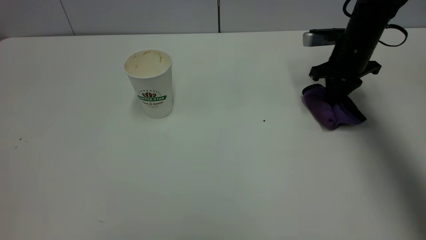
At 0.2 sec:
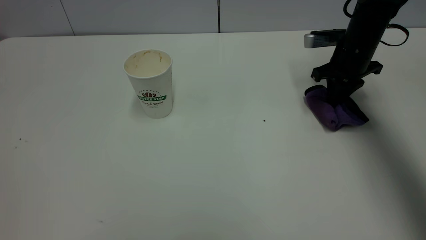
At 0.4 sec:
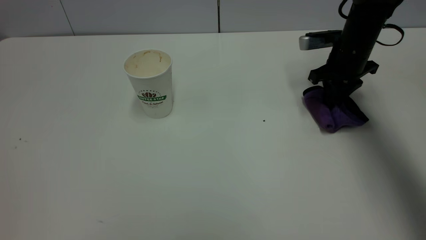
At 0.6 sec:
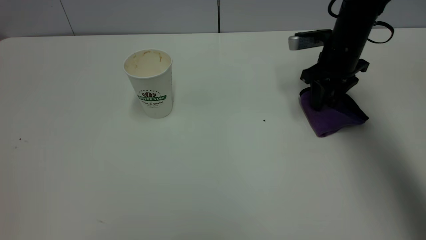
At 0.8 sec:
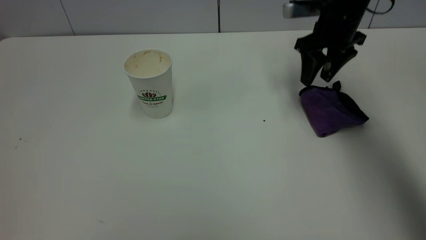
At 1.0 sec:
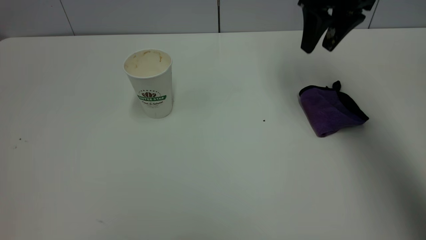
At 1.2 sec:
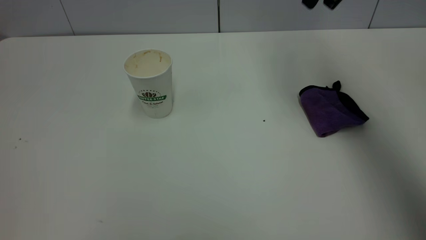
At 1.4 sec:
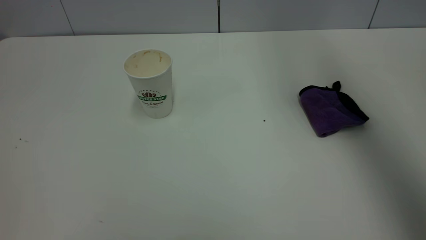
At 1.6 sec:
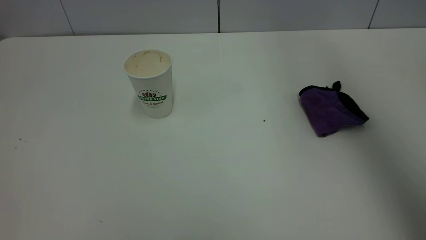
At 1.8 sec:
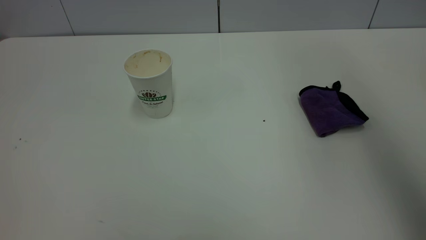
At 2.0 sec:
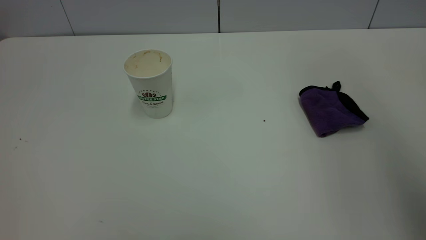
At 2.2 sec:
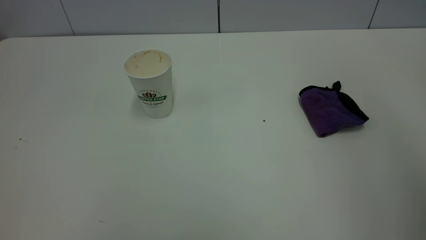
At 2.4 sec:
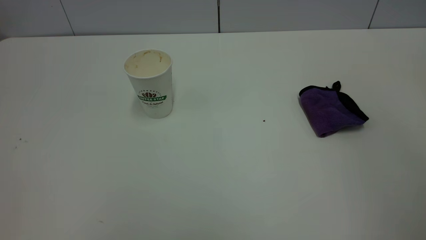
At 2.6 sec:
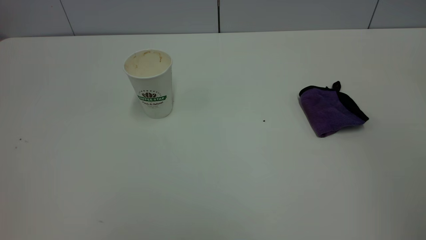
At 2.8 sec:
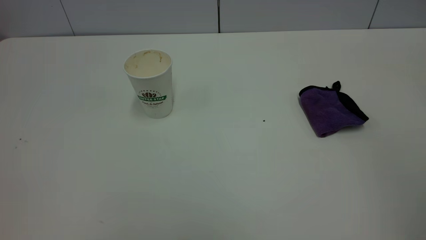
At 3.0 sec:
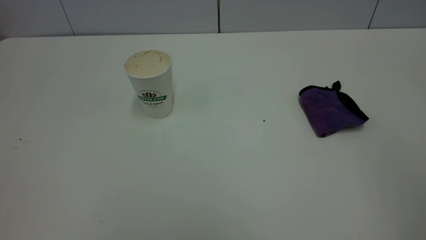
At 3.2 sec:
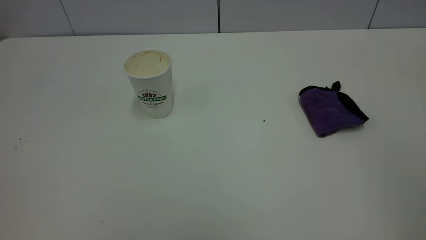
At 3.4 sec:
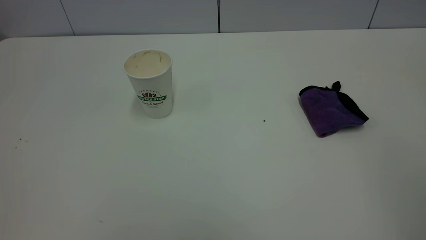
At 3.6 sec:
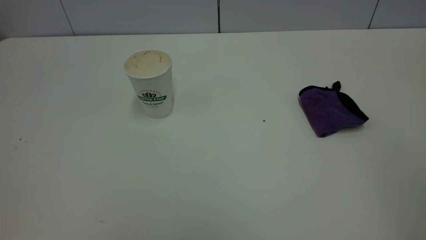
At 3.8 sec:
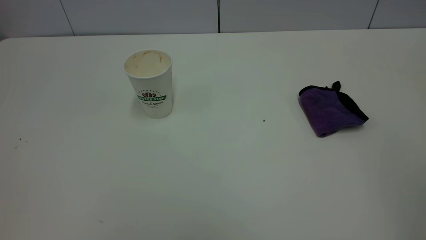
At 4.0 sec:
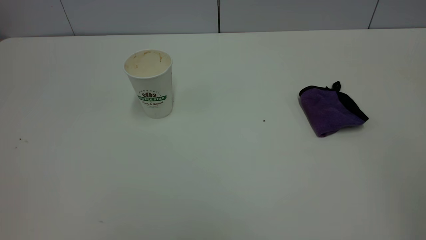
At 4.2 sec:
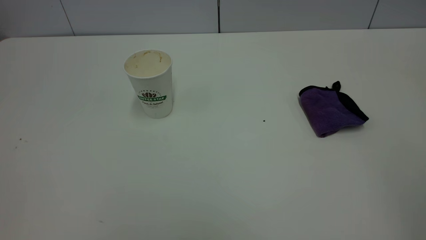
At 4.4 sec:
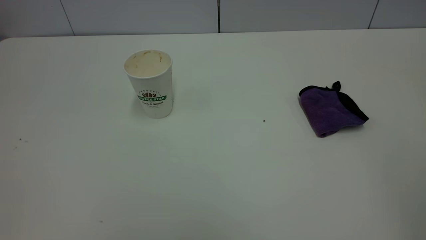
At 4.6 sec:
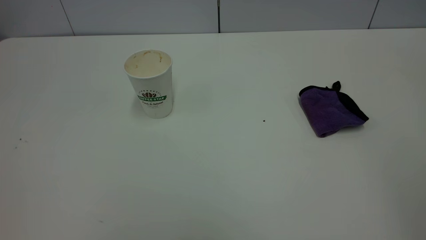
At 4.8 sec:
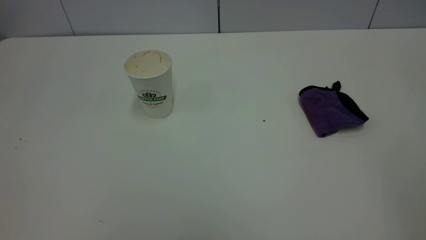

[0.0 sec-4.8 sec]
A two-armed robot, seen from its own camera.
Task of the whole recording: the left gripper pick up the fallen cup and place it upright, the right gripper grasp the purple rag and wipe the tea stain on the table, the right gripper put the purple rag back in its original position.
0.0 sec to 1.6 sec: The right gripper moves upward and backward, approximately 35 cm, and opens up.
1.6 sec to 3.2 sec: The right gripper moves backward, approximately 35 cm.
